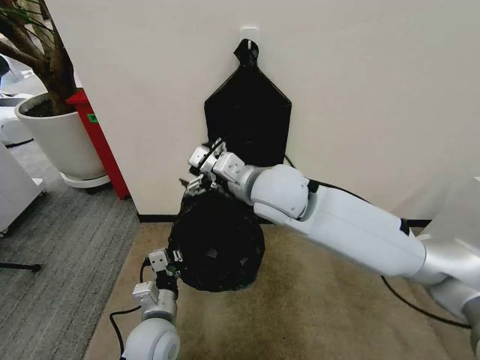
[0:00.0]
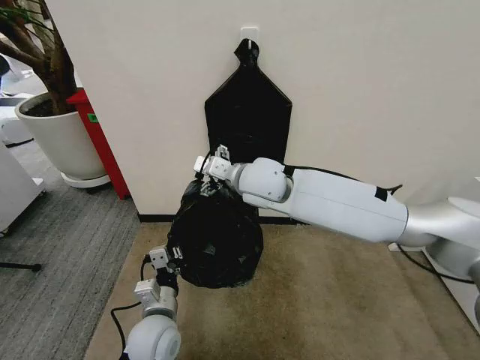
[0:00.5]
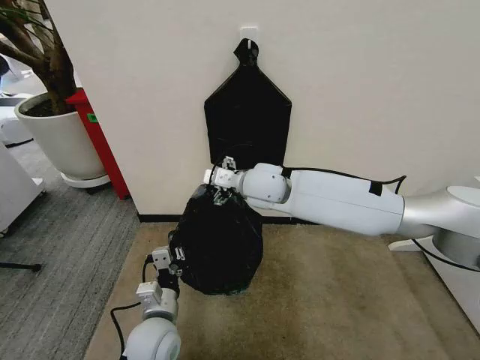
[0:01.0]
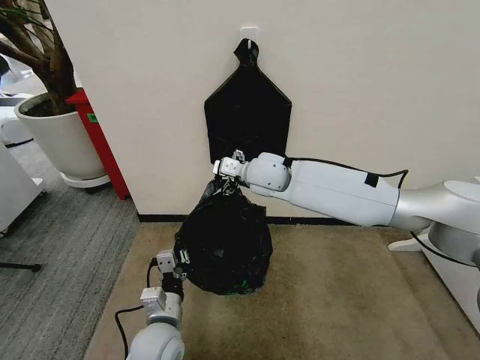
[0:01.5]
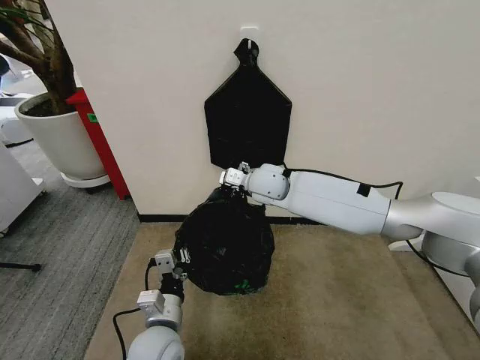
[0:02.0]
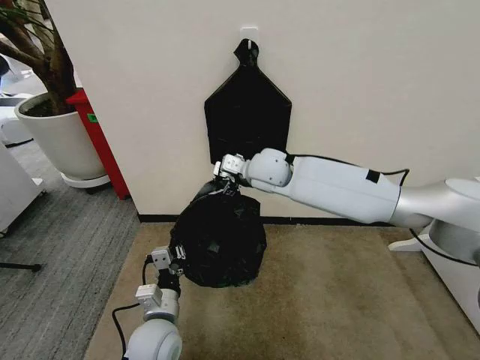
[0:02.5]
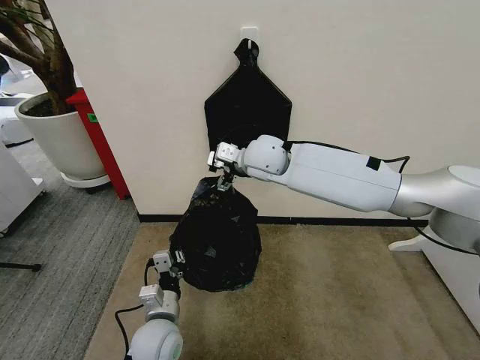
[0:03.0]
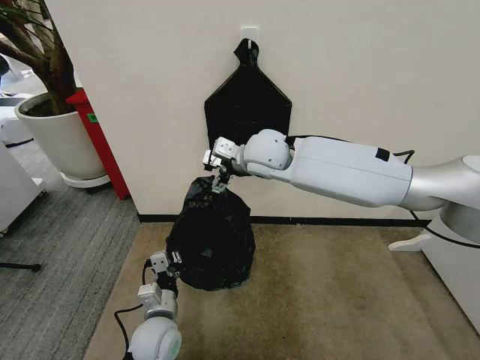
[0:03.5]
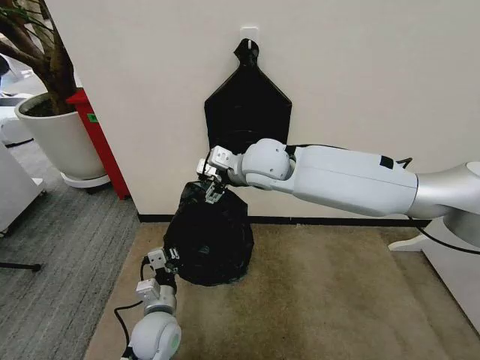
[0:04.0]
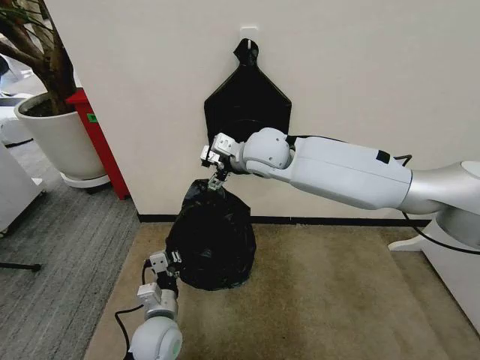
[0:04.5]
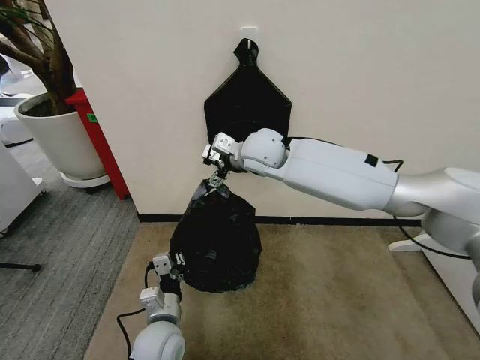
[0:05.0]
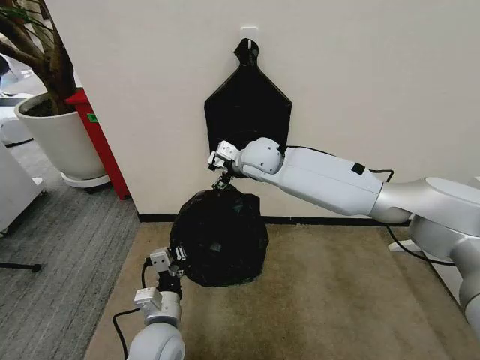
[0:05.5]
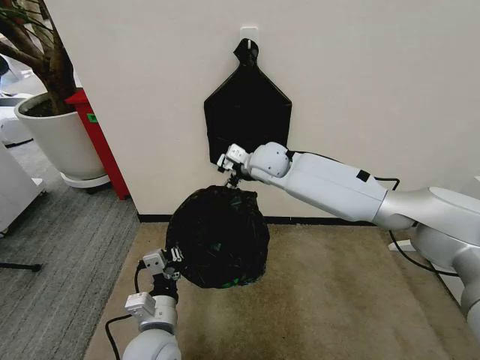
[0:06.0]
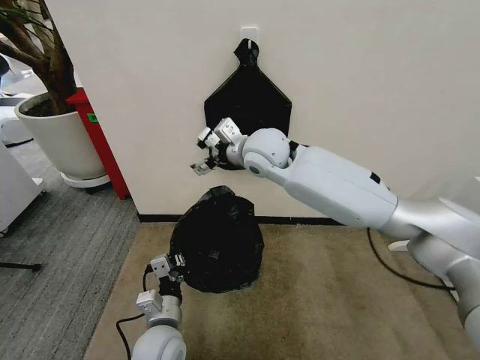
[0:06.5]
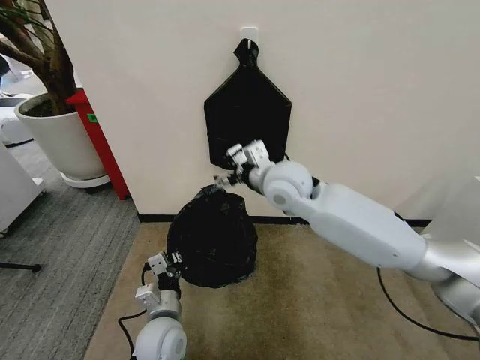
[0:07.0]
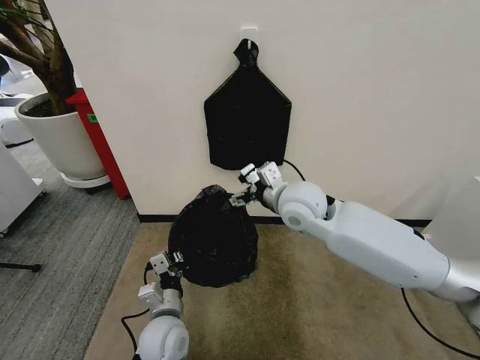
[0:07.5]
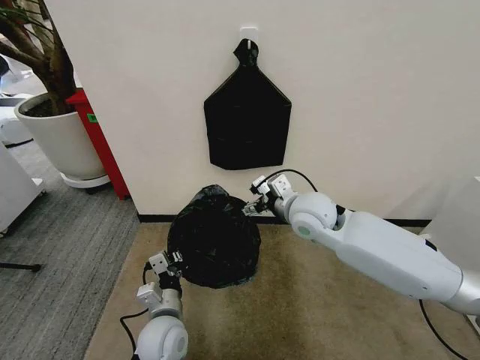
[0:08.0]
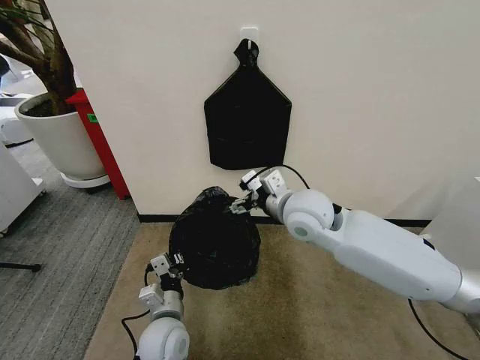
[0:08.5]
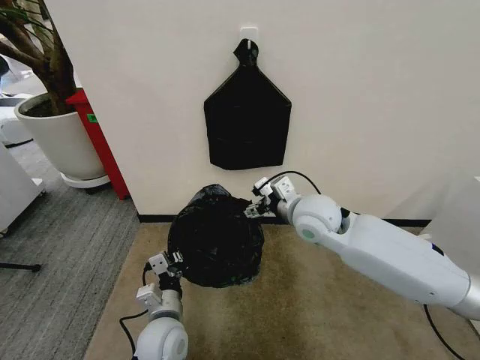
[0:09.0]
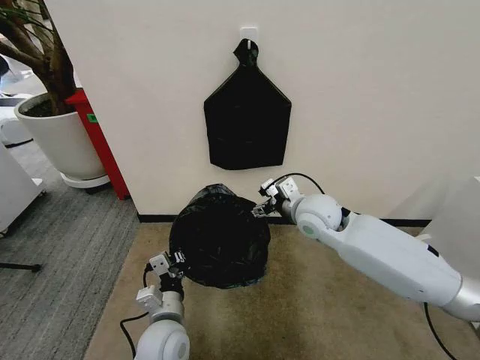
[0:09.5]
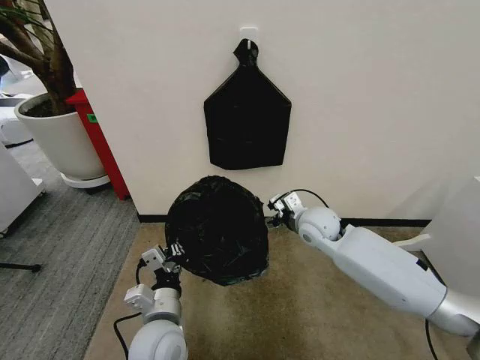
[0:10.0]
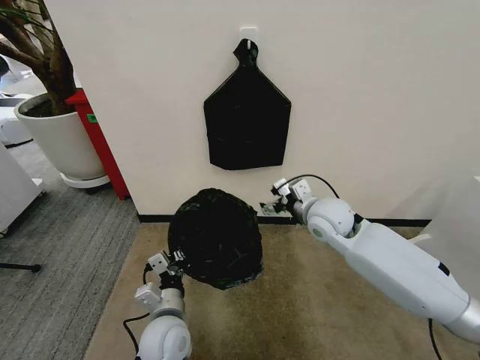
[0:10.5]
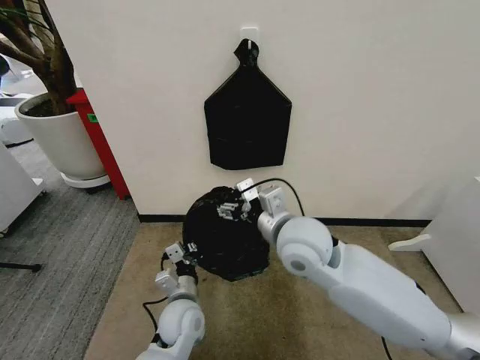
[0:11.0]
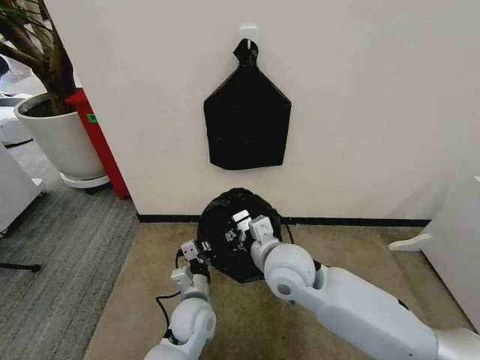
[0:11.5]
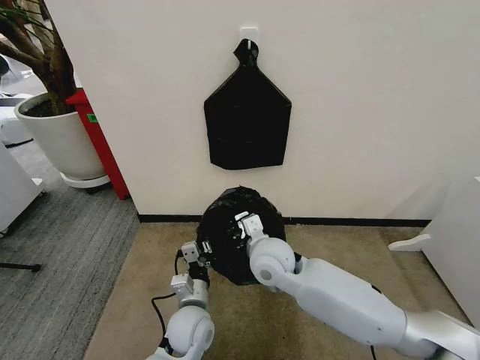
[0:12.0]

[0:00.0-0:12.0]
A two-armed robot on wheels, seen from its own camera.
Task of the whole recording: Place the garbage bag over the trash bin.
0:00.0 to 0:02.0: The right gripper moves forward and downward, about 15 cm.
0:02.0 to 0:04.0: The left gripper changes place by some 5 cm, while the right gripper heads upward, covering about 10 cm.
0:04.0 to 0:06.0: The left gripper goes about 10 cm upward and backward. The right gripper moves forward and downward, approximately 10 cm.
0:06.0 to 0:08.0: The right gripper is displaced backward and to the right by some 15 cm, while the left gripper moves approximately 5 cm.
0:08.0 to 0:10.0: The left gripper is displaced upward by about 5 cm. The right gripper travels downward by approximately 10 cm.
0:10.0 to 0:12.0: The left gripper shifts approximately 5 cm downward; the right gripper moves to the left and backward, approximately 15 cm, and closes its fingers.

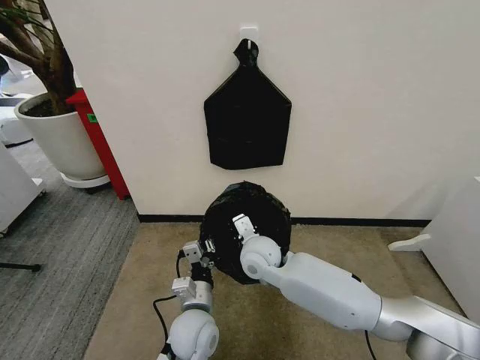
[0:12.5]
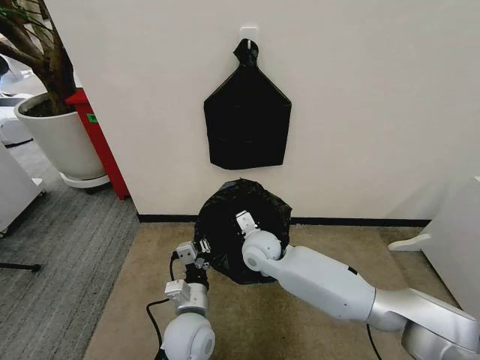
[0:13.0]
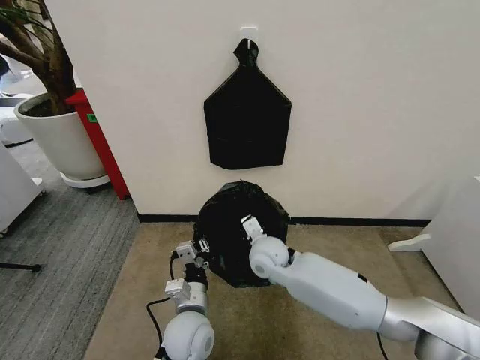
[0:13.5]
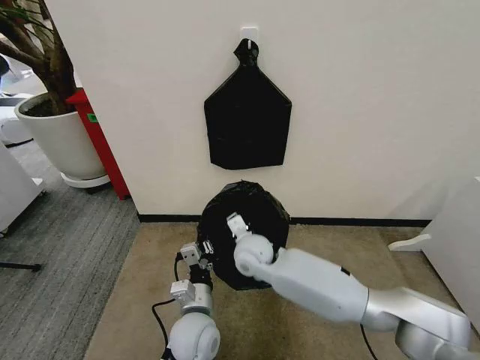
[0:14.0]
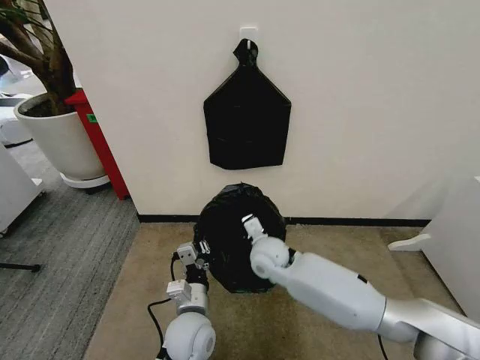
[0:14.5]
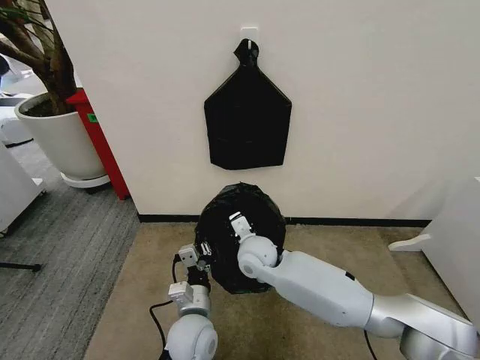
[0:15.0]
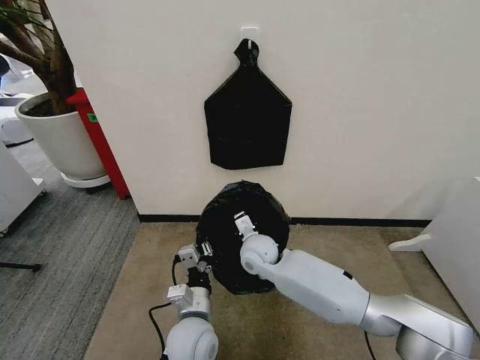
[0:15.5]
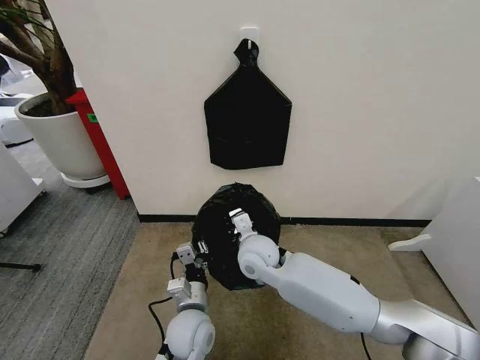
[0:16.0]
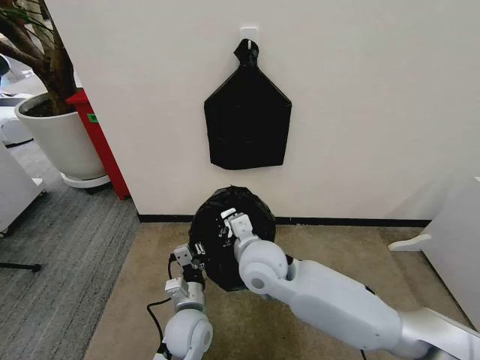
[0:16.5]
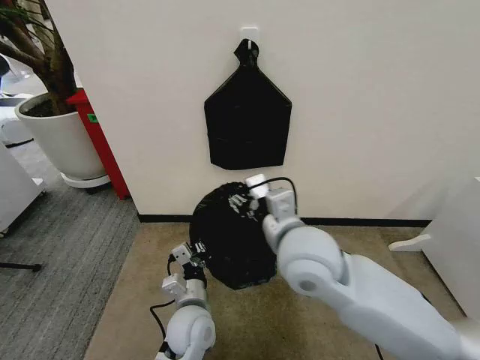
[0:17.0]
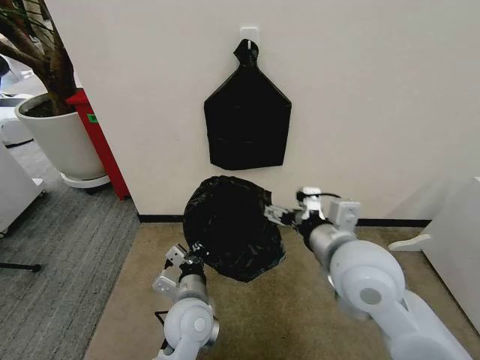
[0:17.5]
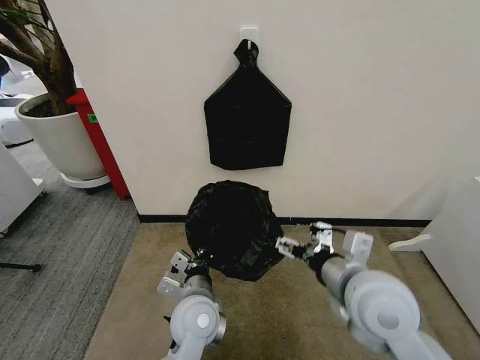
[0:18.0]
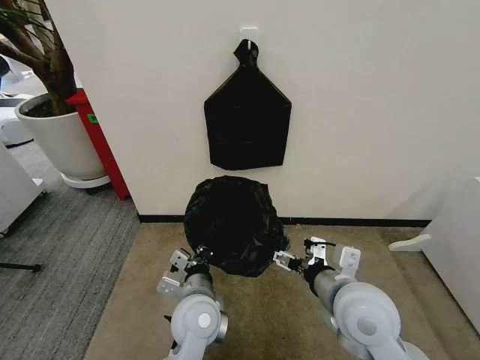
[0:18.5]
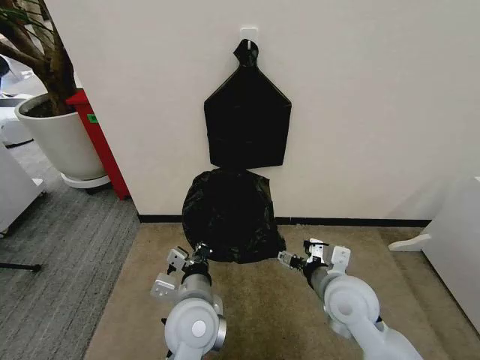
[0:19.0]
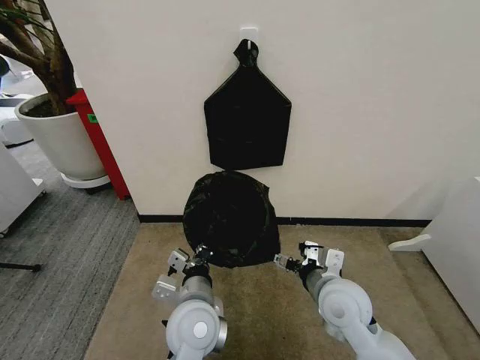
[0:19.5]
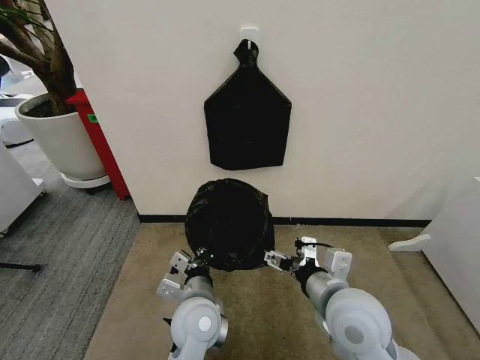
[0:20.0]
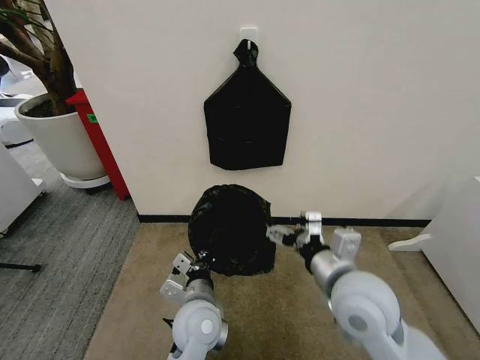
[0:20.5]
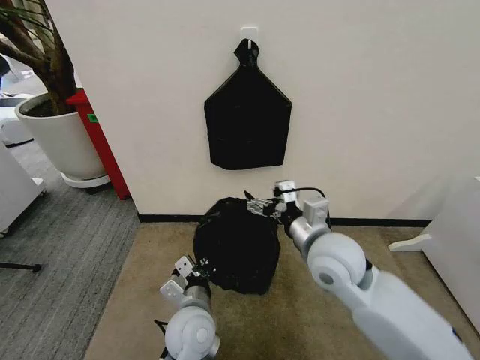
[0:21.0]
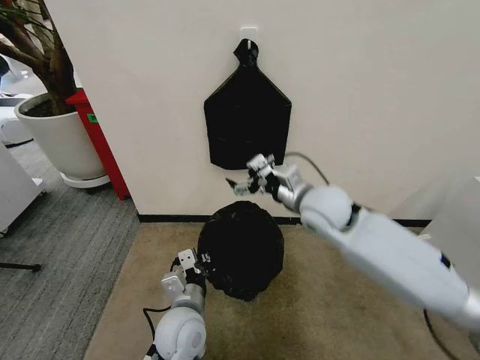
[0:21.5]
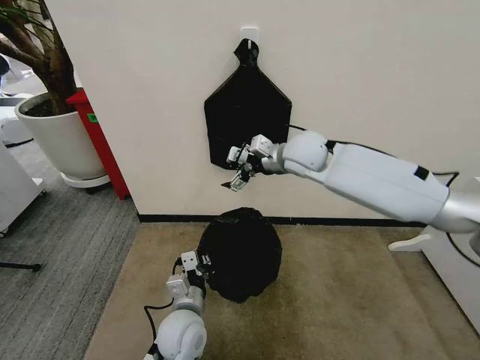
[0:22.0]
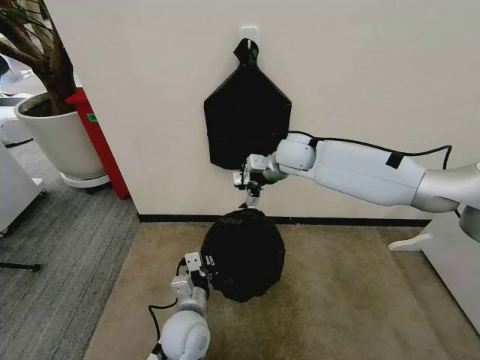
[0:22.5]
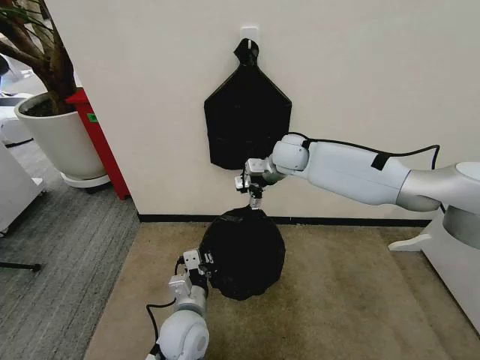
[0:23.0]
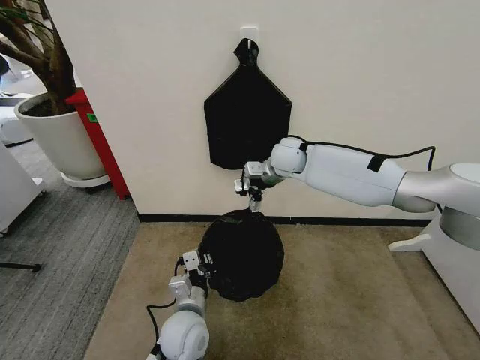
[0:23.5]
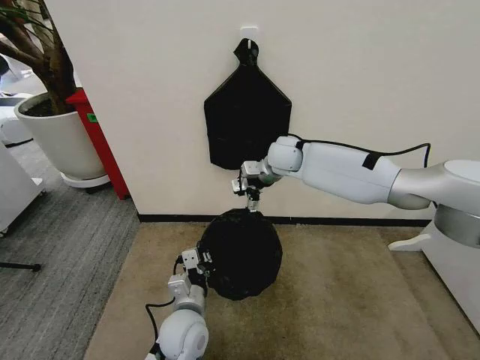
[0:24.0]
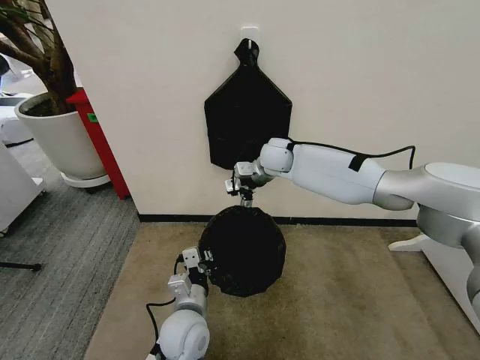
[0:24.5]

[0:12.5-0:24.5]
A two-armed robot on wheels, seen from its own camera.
Task of the whole recording: Place the garbage bag over the trash bin.
0:12.5 to 0:14.5: The grippers stay close to where they were, moving slightly.
0:14.5 to 0:16.5: The right gripper moves upward and backward, approximately 10 cm.
0:16.5 to 0:18.5: The left gripper is displaced upward by roughly 10 cm. The right gripper travels to the right and backward by about 20 cm, and opens its fingers.
0:18.5 to 0:20.5: The right gripper goes downward and returns, roughly 5 cm each way.
0:20.5 to 0:22.5: The left gripper heads downward, covering roughly 5 cm; the right gripper travels forward by roughly 35 cm.
0:22.5 to 0:24.5: The right gripper shifts by some 5 cm.

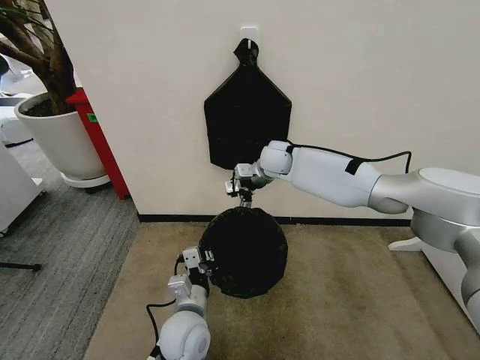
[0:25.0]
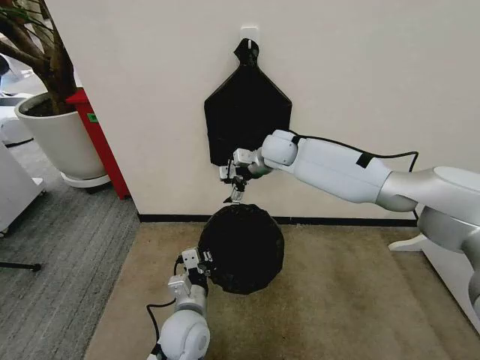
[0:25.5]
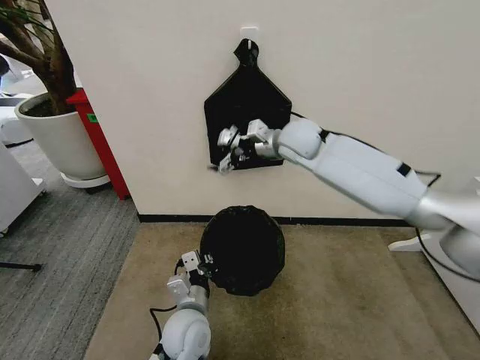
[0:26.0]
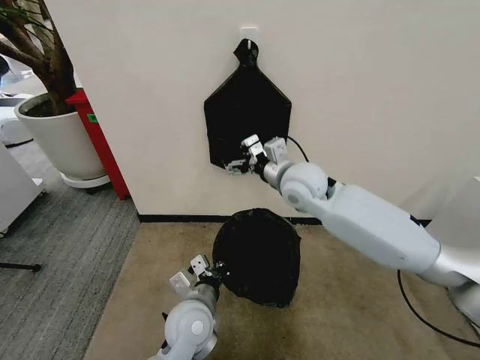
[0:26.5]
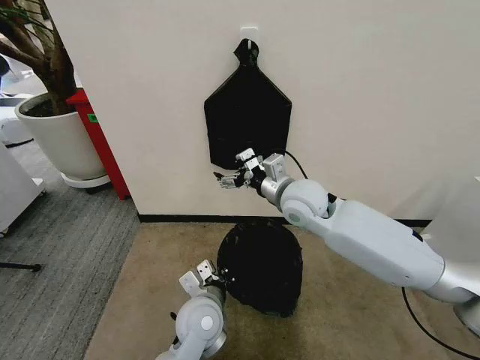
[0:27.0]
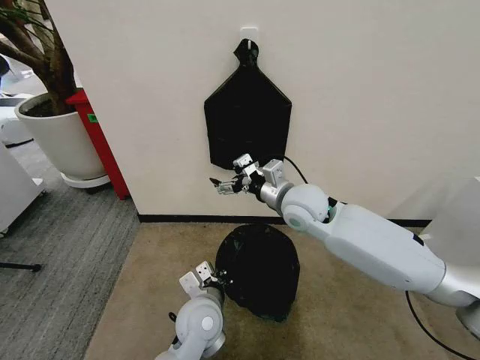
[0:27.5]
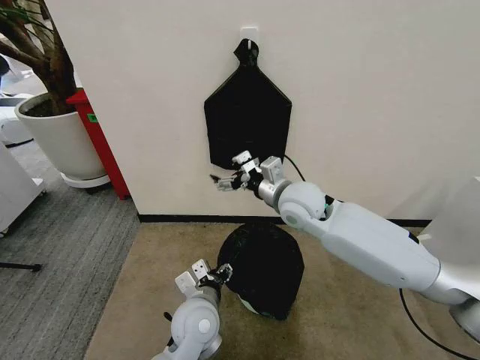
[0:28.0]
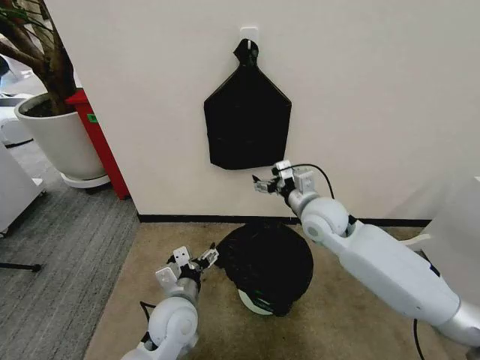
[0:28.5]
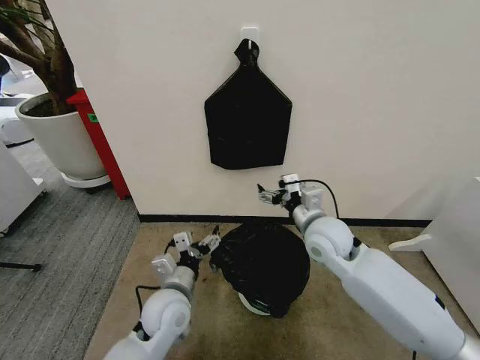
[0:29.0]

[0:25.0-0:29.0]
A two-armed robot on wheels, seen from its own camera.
Task of the whole recording: Place the garbage bag over the trash bin.
0:25.0 to 0:27.0: The right gripper shifts about 15 cm backward.
0:27.0 to 0:29.0: The left gripper moves to the left, approximately 5 cm, and opens its fingers; the right gripper shifts roughly 10 cm downward and to the right.
